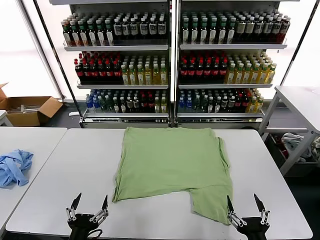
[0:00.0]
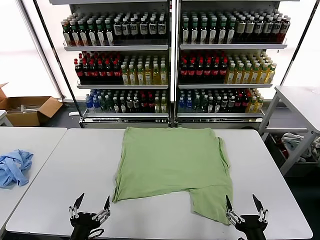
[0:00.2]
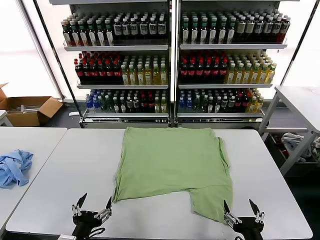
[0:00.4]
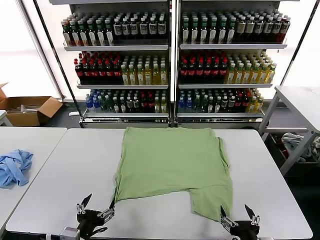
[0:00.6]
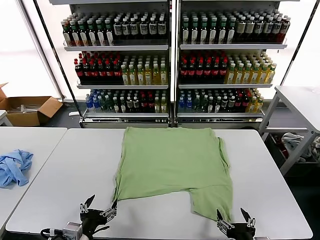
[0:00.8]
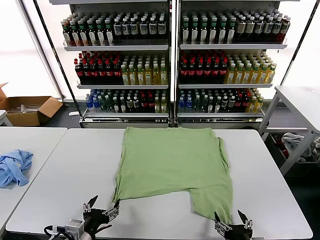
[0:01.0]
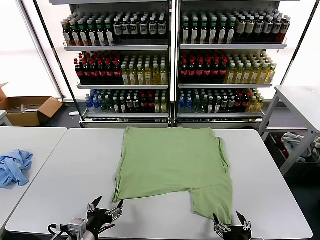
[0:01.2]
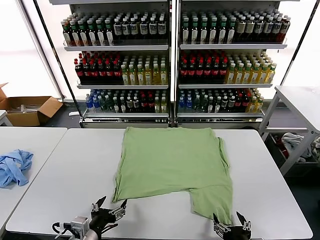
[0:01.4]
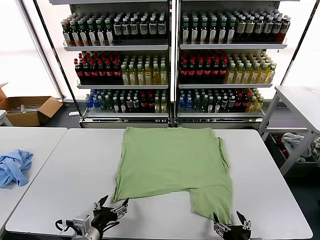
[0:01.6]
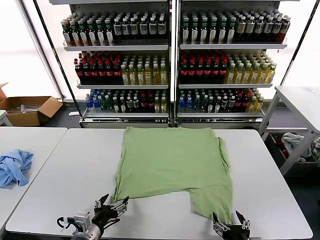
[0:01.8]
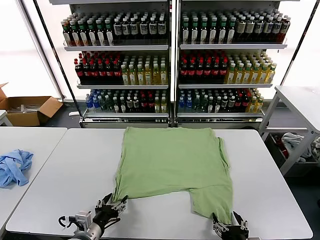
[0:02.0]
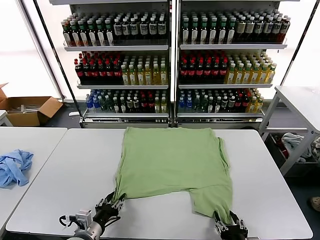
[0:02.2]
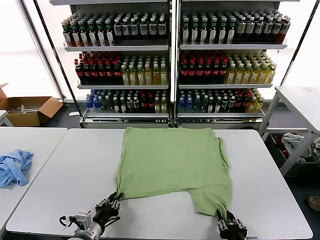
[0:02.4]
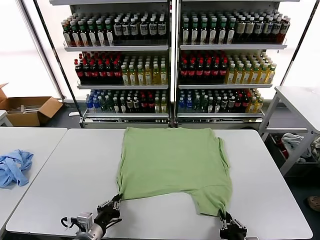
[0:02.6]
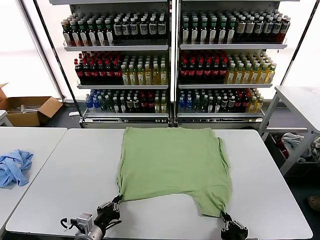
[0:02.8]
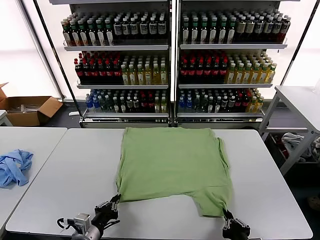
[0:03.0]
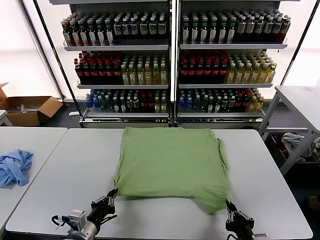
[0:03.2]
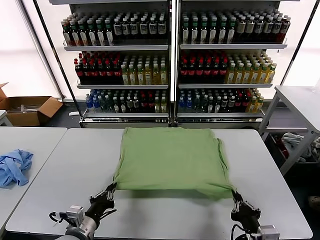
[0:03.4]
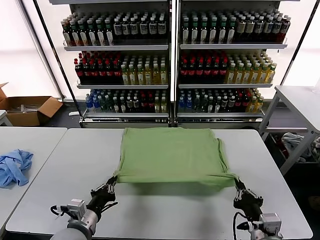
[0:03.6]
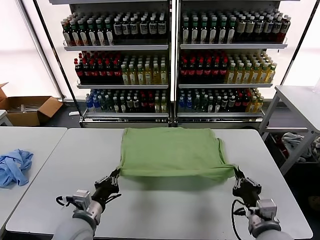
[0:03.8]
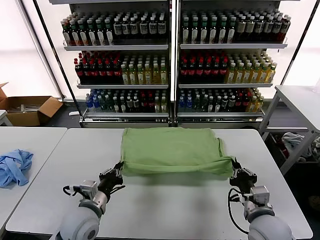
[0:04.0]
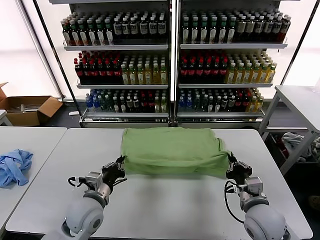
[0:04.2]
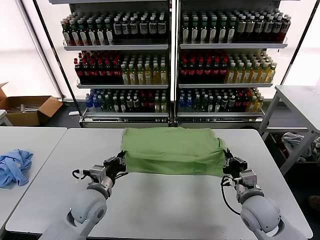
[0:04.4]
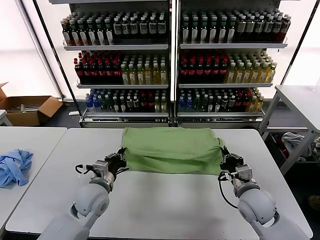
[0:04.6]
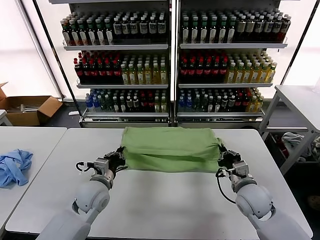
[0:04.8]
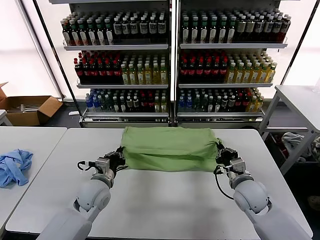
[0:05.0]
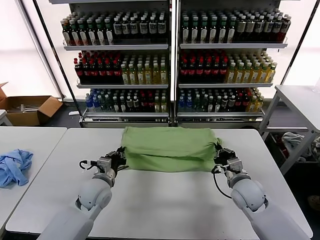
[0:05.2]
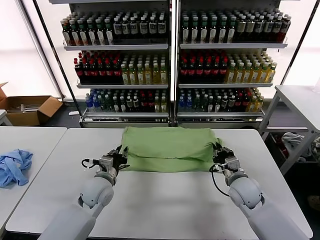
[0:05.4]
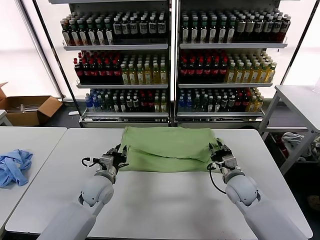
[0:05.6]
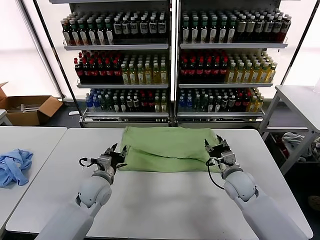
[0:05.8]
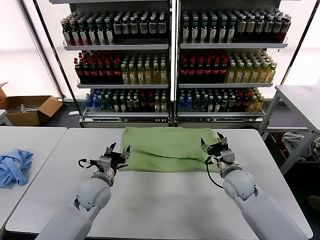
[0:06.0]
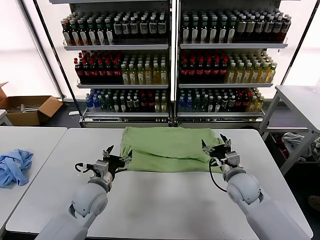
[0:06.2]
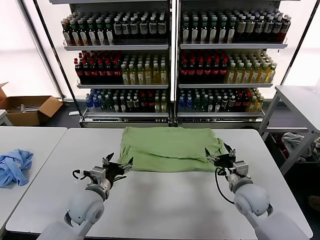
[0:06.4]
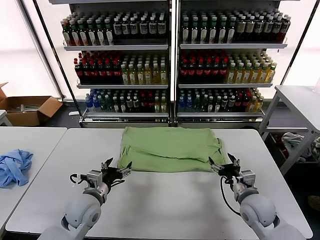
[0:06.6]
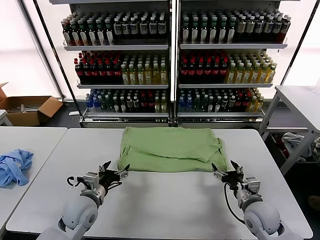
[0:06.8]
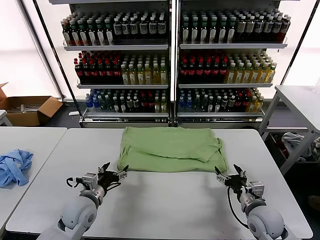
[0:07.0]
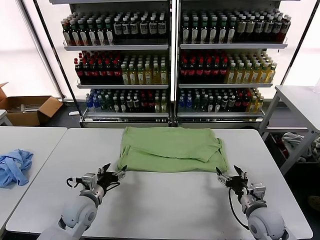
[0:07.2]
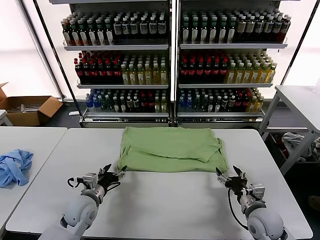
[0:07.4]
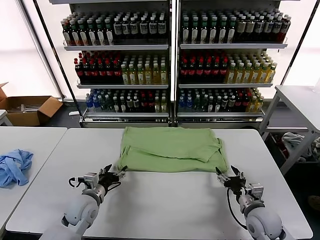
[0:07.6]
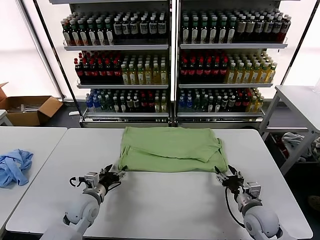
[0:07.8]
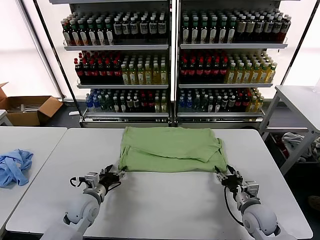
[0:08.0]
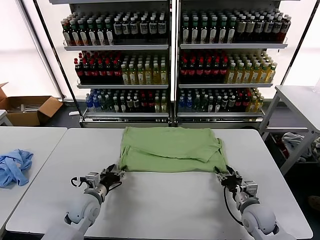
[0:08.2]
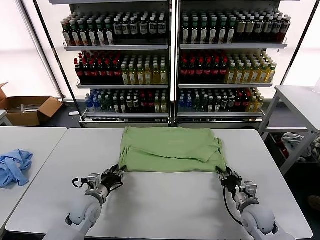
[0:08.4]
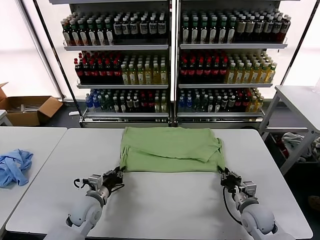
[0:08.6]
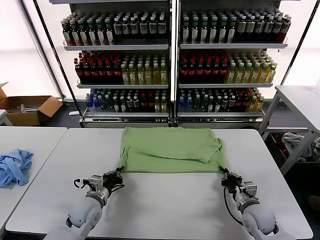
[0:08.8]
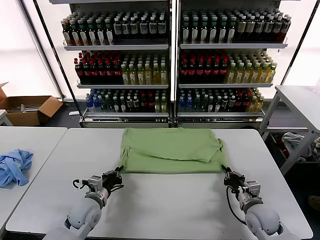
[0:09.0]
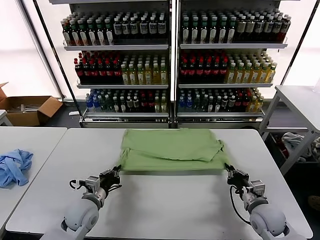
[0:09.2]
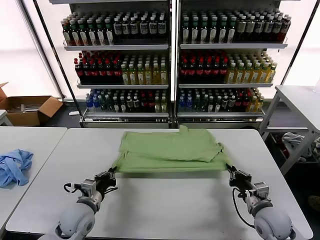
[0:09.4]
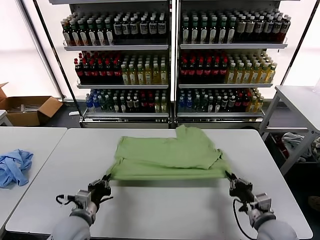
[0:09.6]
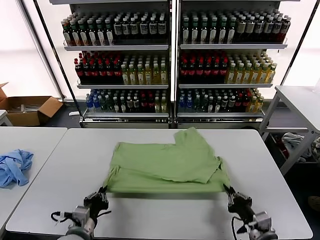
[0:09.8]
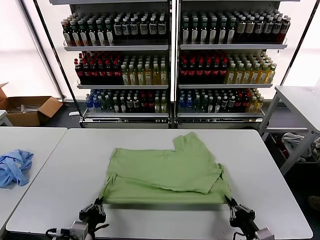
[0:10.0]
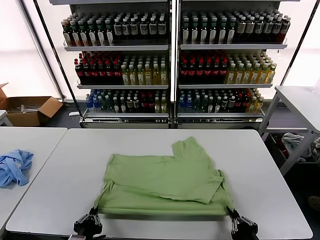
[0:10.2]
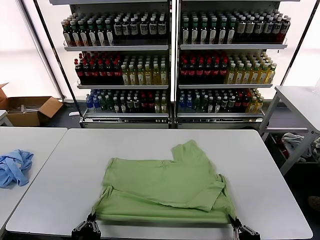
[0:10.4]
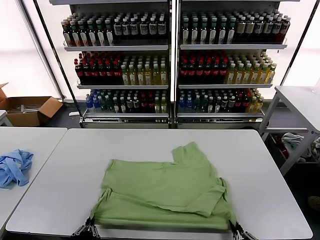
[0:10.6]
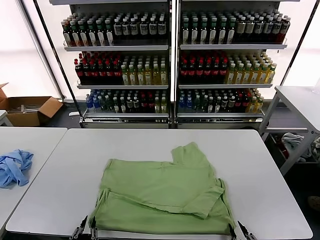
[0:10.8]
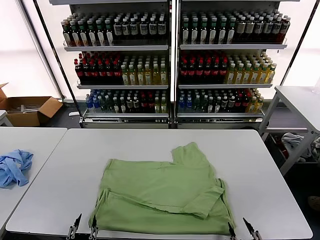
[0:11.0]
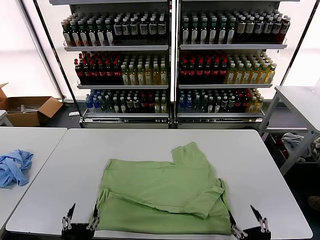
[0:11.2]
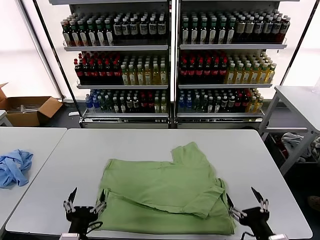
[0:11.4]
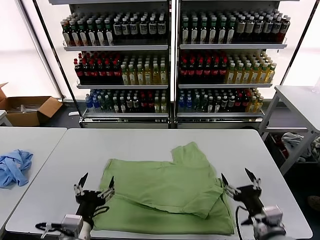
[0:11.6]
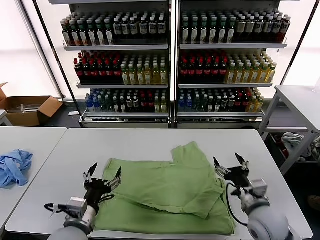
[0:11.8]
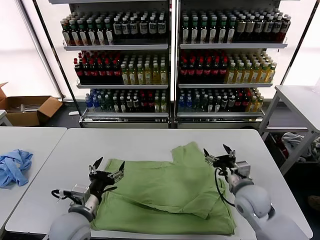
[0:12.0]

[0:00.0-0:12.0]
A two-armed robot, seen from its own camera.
Task of the whole recording: fold and organize the clothes.
Step, 0:00.0 to 0:02.8: use both grippers simultaneously to clamp the lower edge of the clothing fabric.
Step, 0:03.0 to 0:05.6: use both grippers to drag the lower edge of the fabric forward and fold it over the upper edge.
Step, 0:05.8 to 0:10.8: Drag the clothes downward with both gripper.
0:01.6 to 0:03.0: The left gripper closes up, while the right gripper closes.
0:03.0 to 0:04.4: The grippers both shift forward by some 15 cm.
0:04.4 to 0:06.0: The left gripper opens its fingers. The right gripper heads forward, covering some 10 cm, and opens its fingers.
0:06.0 to 0:07.6: The left gripper changes place by about 5 cm, while the right gripper moves backward, downward and to the right, some 10 cm.
0:07.6 to 0:09.0: The left gripper closes its fingers; the right gripper closes up.
0:09.0 to 0:10.4: Both grippers move backward, about 20 cm.
0:10.4 to 0:12.0: The left gripper moves forward, roughly 15 cm, and opens. Meanwhile the right gripper moves forward, about 25 cm, and opens its fingers.

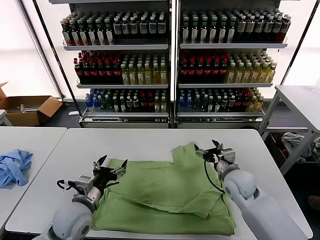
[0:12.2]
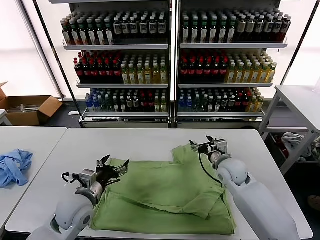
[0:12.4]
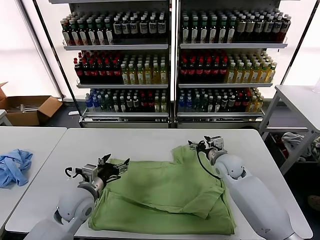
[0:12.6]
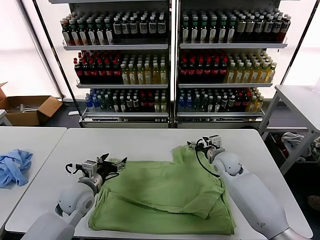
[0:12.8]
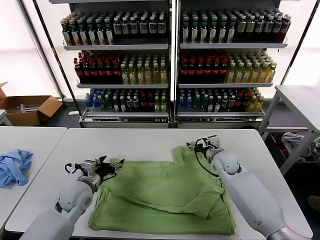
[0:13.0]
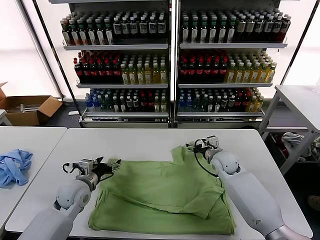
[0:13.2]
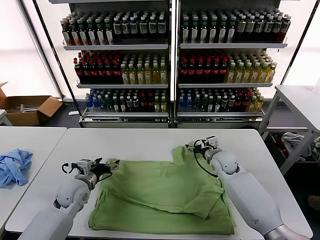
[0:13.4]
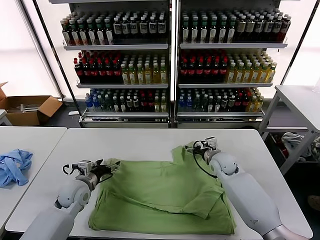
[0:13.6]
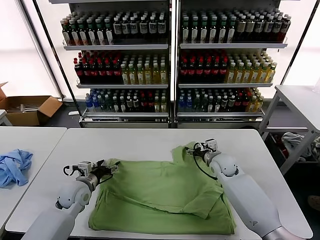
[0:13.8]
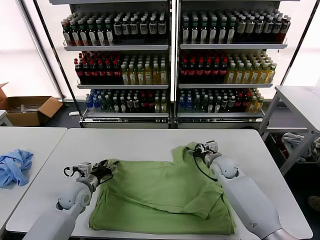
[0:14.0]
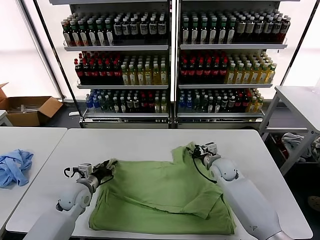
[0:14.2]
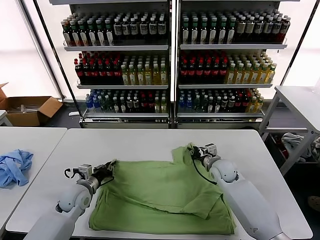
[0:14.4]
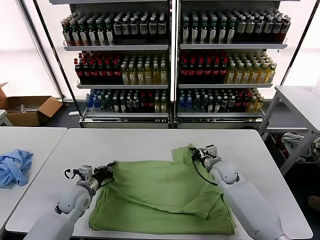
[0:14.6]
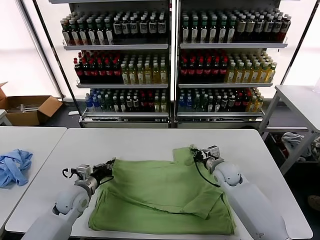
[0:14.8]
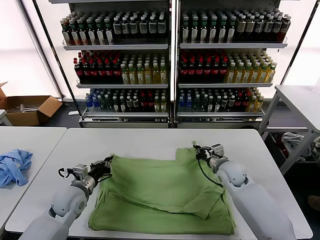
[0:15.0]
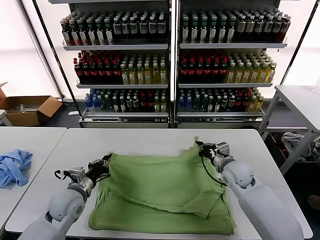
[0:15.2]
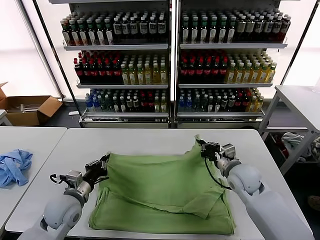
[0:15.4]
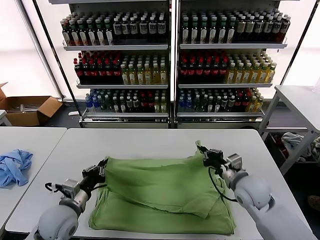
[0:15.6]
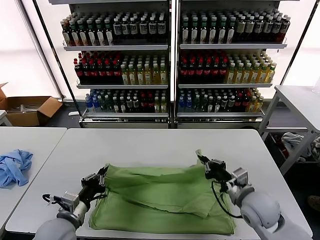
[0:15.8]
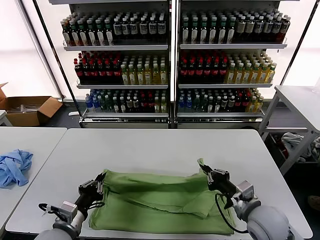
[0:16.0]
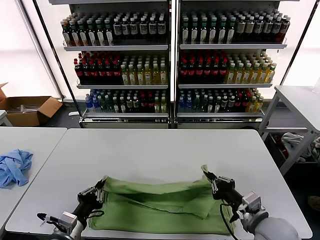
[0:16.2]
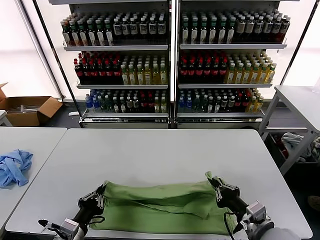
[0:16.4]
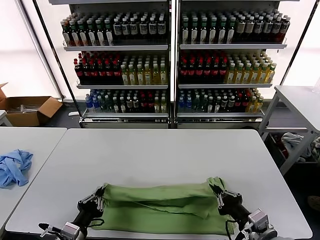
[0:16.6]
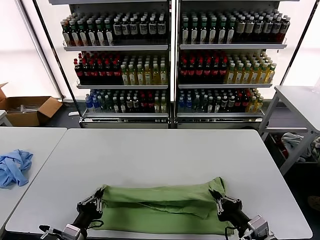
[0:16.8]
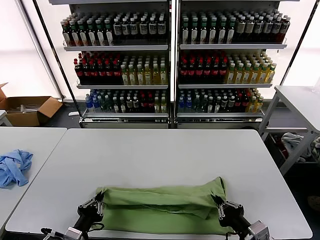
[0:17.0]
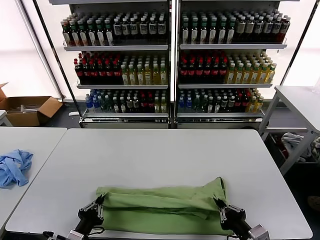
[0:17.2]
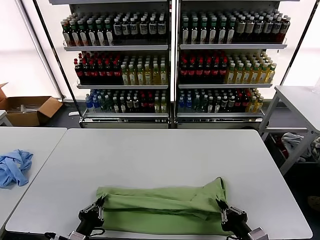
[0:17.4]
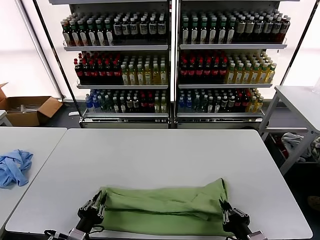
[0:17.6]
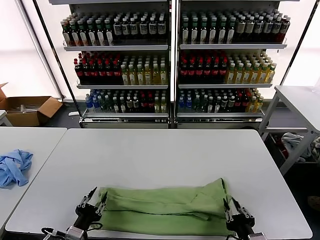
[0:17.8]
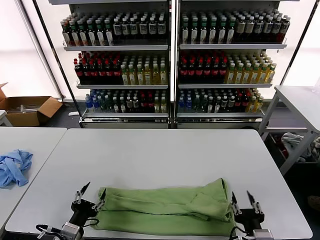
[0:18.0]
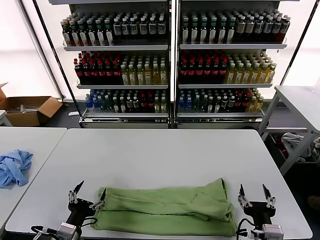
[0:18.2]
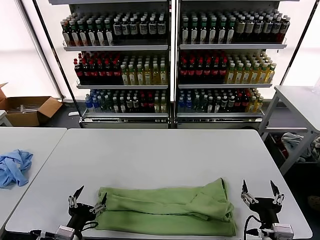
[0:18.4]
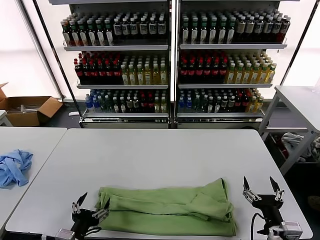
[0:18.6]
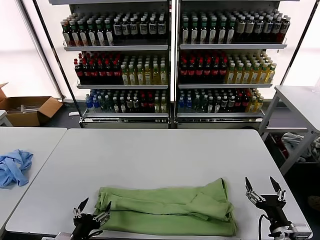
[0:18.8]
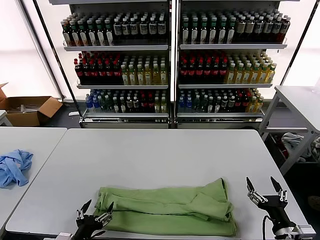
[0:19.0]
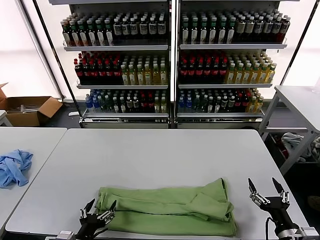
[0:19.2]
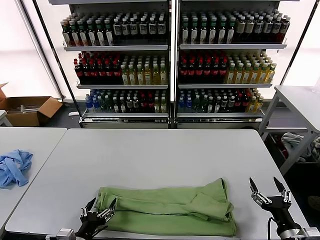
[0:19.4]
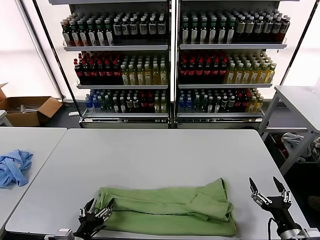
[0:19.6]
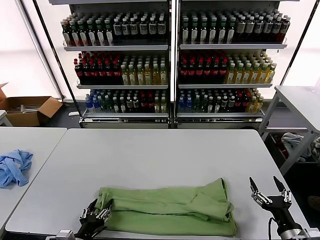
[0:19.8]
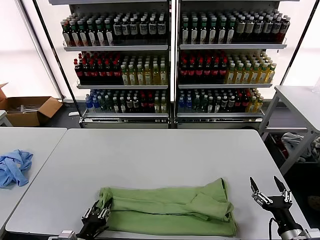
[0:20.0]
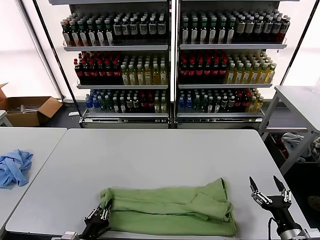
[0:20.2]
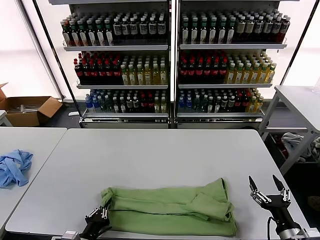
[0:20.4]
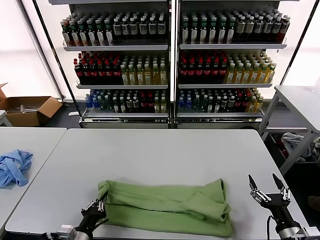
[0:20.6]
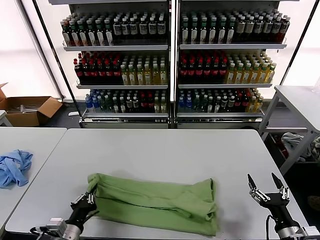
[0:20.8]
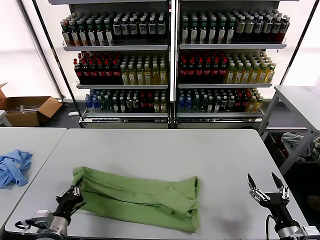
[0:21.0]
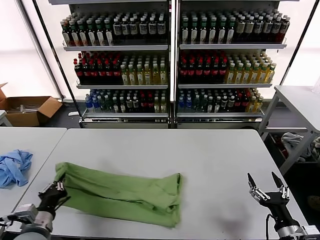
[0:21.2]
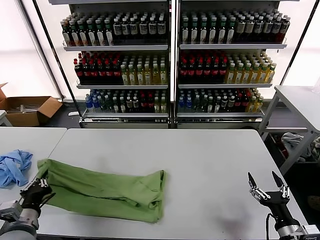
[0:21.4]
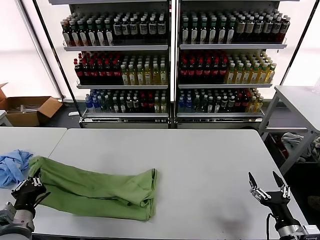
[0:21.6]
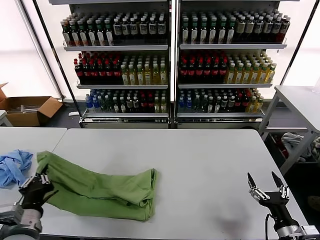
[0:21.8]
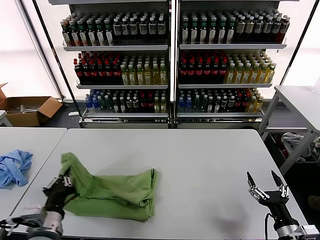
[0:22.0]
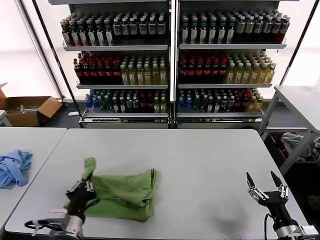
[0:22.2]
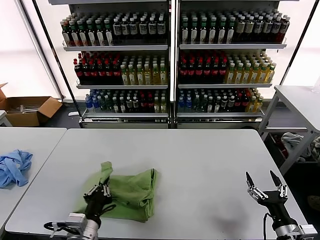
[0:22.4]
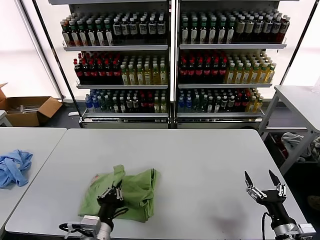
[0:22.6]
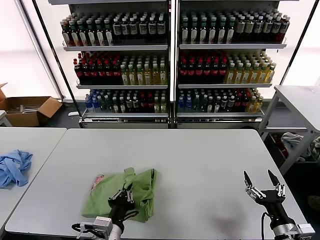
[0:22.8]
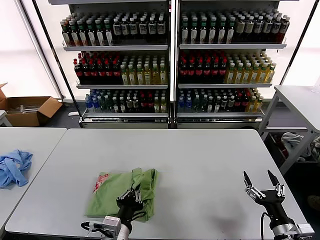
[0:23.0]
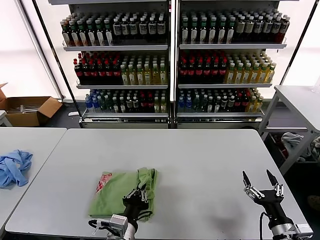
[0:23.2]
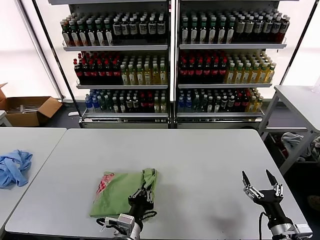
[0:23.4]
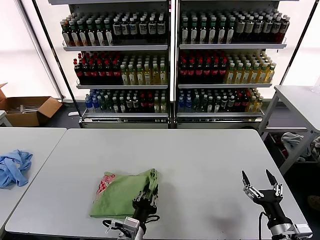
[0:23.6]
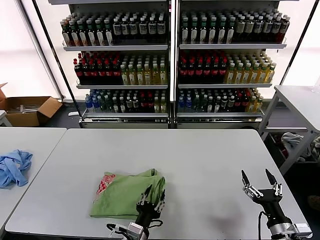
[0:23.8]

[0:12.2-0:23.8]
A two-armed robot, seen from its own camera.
Task of the whole recording: fold and organize the clothes.
Step, 0:12.2 to 0:14.6: use both grippers simultaneously to clamp the upper edge of the clothing fabric.
Step, 0:14.8 to 0:17.8: use both grippers to drag the upper edge of the fabric backward and fold it over the lower edge.
Step, 0:18.0 to 0:20.2: use the left gripper to clamp the left edge of the fabric.
Step, 0:20.4 to 0:23.8: use the left gripper to drag the left edge of the fabric to the left and folds it over the right edge.
0:12.2 to 0:13.6: The left gripper travels forward, to the left and downward by approximately 15 cm. Meanwhile the right gripper moves forward, roughly 10 cm.
0:13.6 to 0:15.0: The left gripper closes its fingers, while the right gripper shifts by roughly 5 cm, and closes its fingers.
0:15.0 to 0:16.6: The two grippers go some 25 cm backward.
0:16.6 to 0:18.0: The right gripper changes place by approximately 5 cm, and opens up. The left gripper opens.
0:18.0 to 0:19.4: The right gripper moves to the right, about 10 cm, and opens up.
0:19.4 to 0:21.0: The left gripper shifts by approximately 5 cm, and closes.
0:21.0 to 0:22.4: The left gripper goes some 10 cm to the right.
0:22.4 to 0:23.8: The left gripper goes some 15 cm to the right and downward, and opens up.
